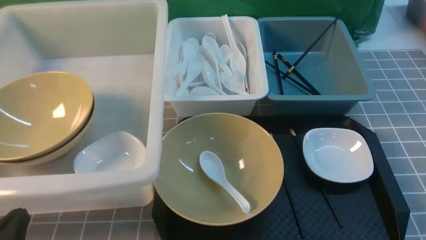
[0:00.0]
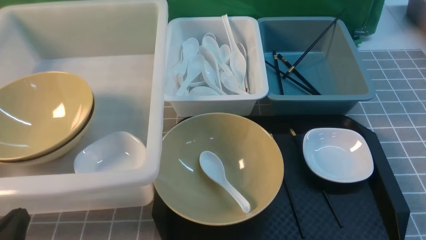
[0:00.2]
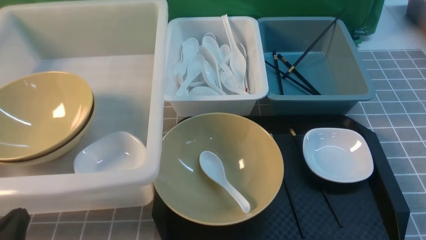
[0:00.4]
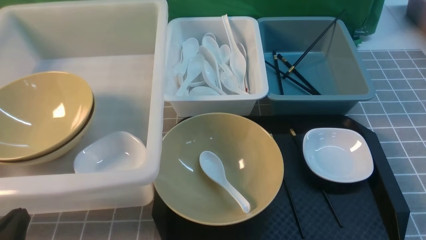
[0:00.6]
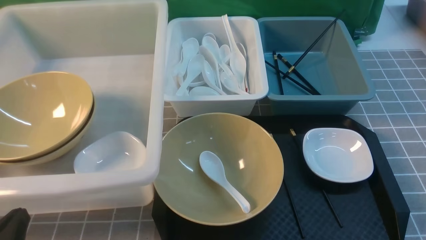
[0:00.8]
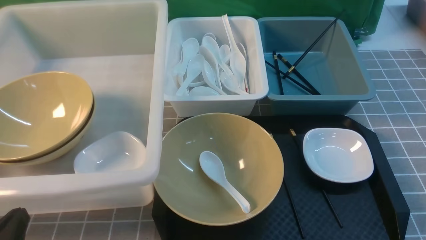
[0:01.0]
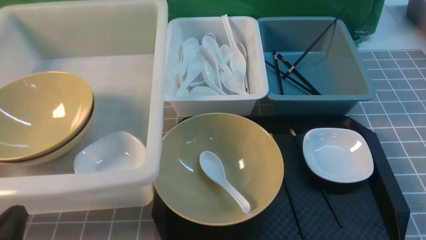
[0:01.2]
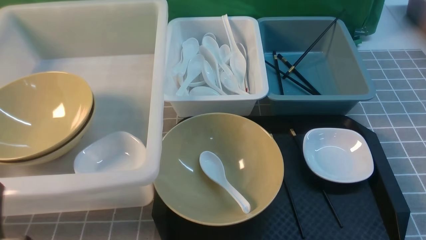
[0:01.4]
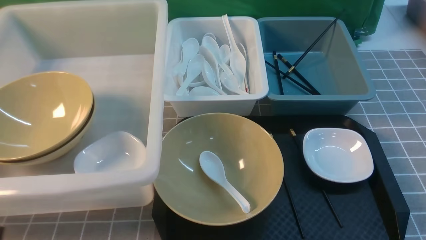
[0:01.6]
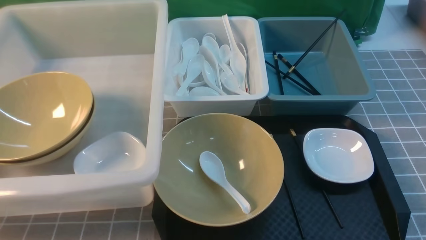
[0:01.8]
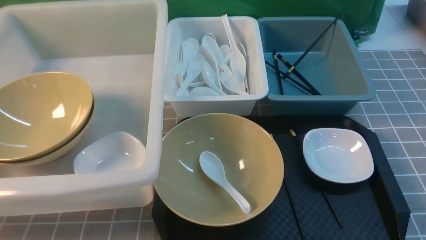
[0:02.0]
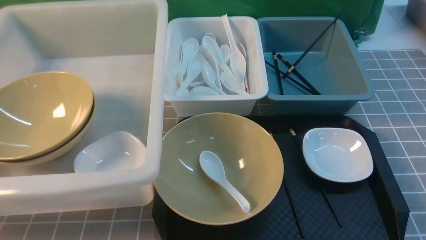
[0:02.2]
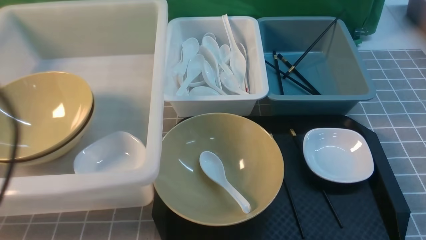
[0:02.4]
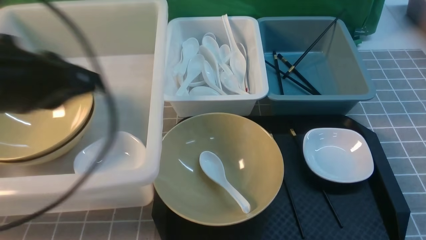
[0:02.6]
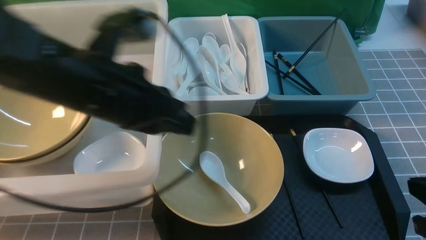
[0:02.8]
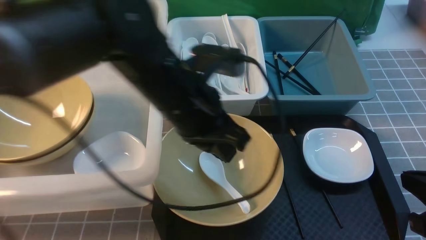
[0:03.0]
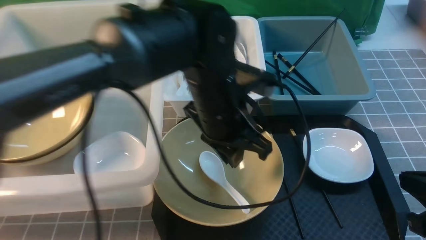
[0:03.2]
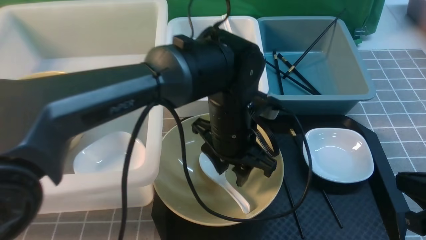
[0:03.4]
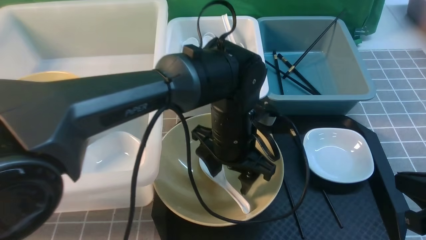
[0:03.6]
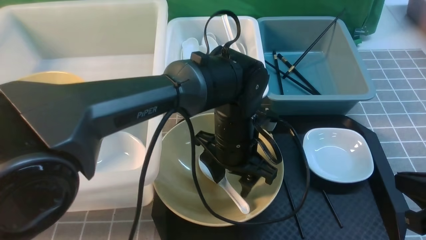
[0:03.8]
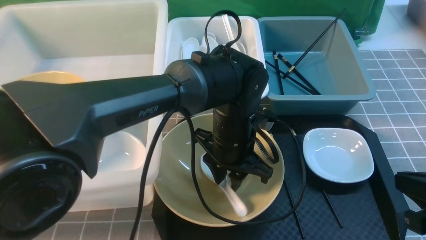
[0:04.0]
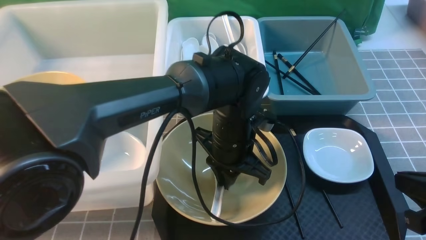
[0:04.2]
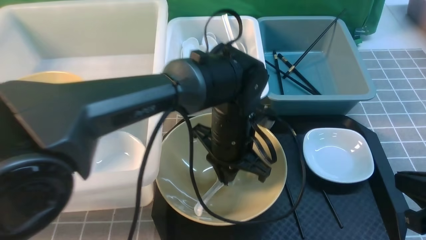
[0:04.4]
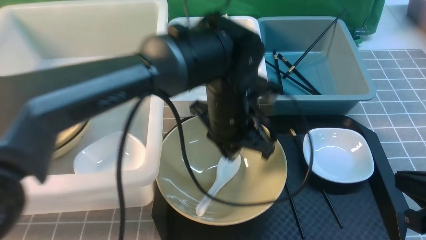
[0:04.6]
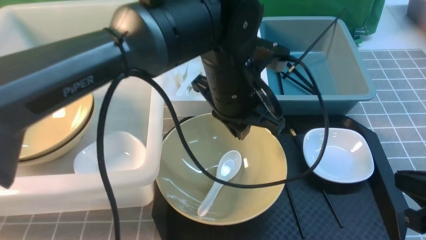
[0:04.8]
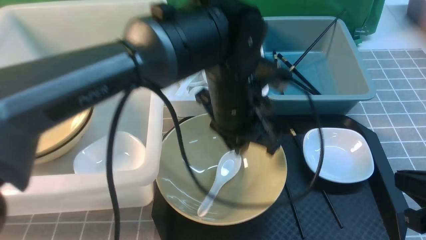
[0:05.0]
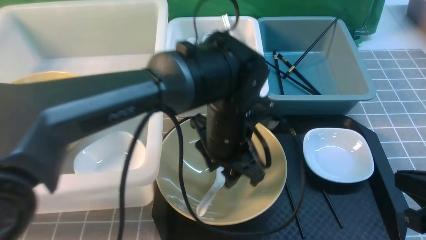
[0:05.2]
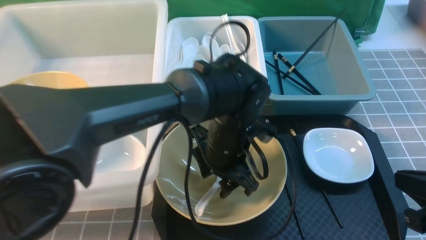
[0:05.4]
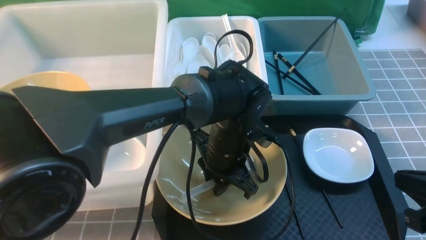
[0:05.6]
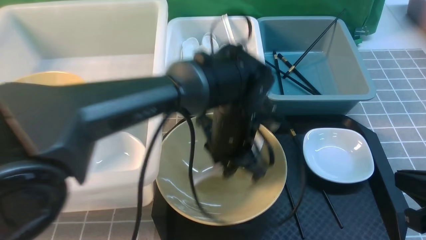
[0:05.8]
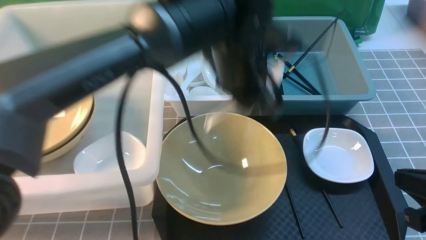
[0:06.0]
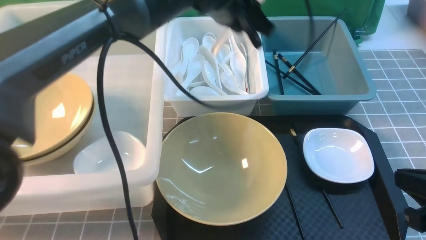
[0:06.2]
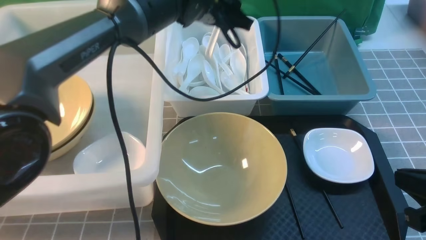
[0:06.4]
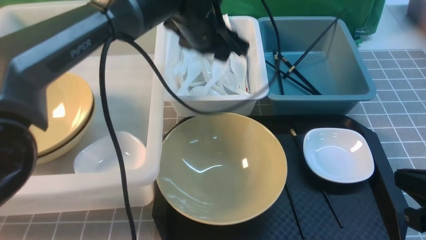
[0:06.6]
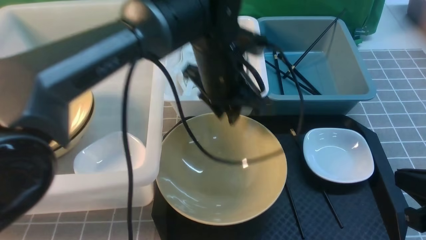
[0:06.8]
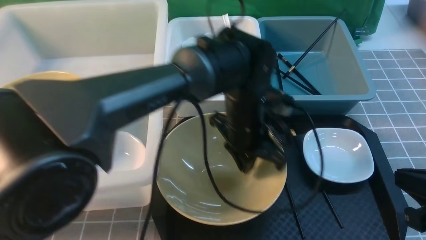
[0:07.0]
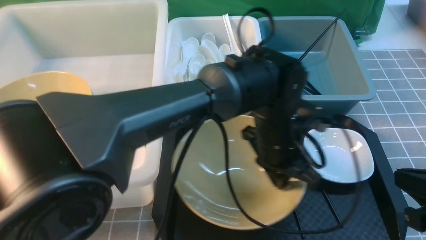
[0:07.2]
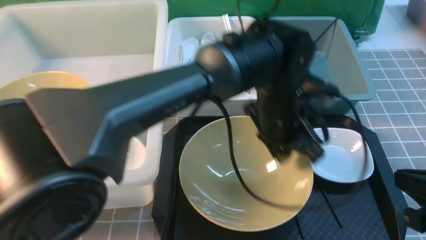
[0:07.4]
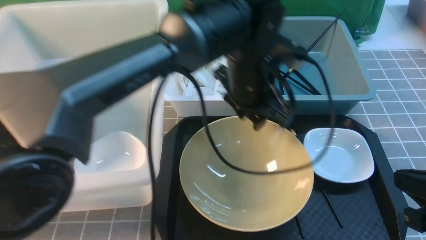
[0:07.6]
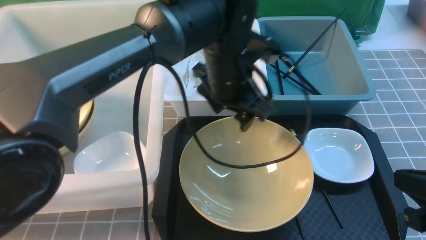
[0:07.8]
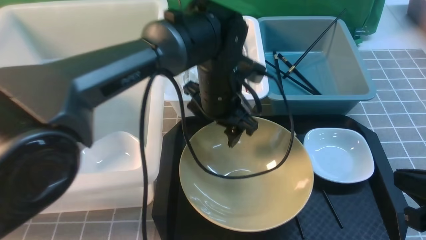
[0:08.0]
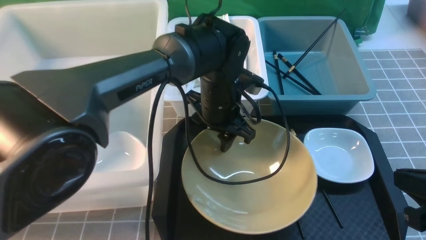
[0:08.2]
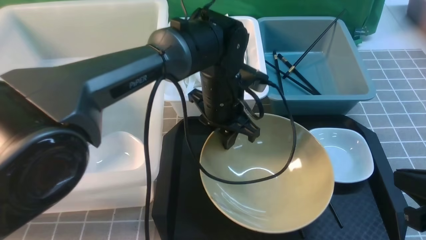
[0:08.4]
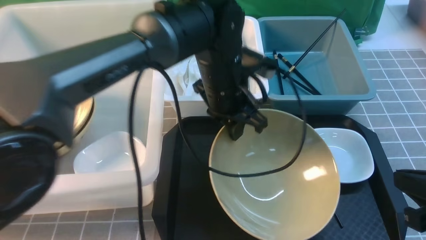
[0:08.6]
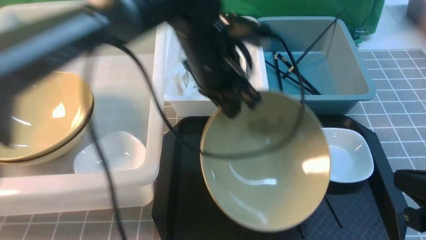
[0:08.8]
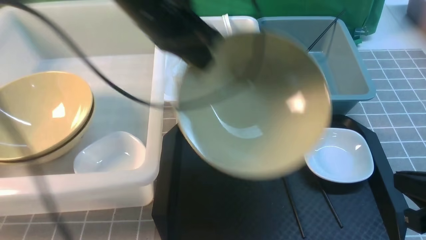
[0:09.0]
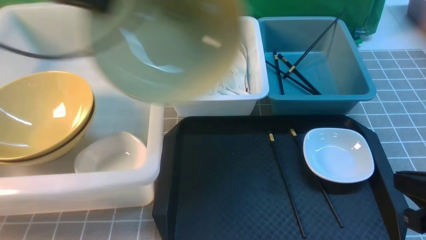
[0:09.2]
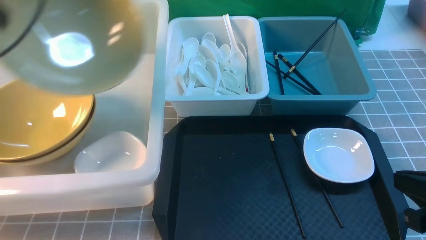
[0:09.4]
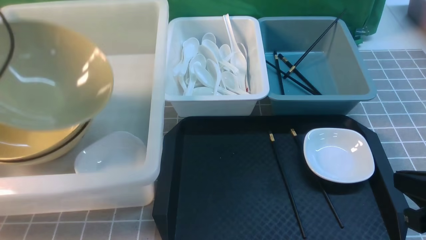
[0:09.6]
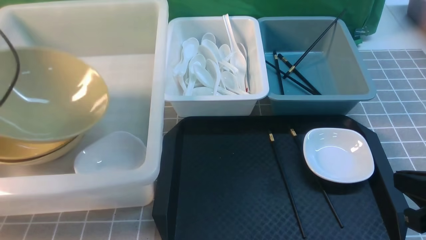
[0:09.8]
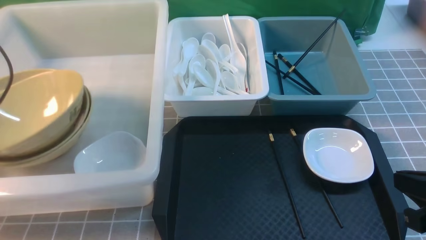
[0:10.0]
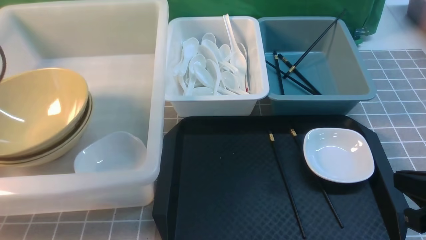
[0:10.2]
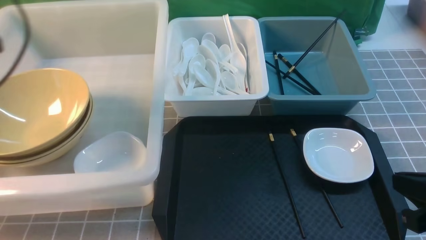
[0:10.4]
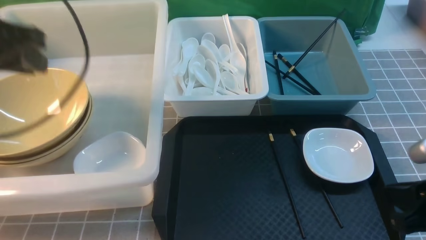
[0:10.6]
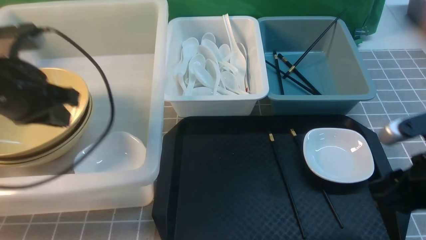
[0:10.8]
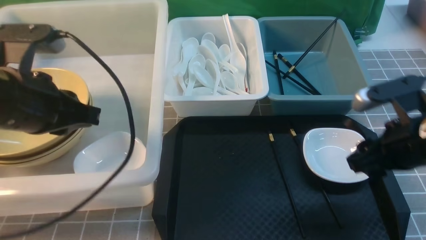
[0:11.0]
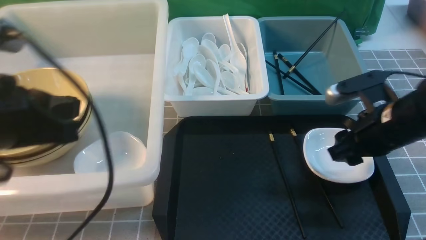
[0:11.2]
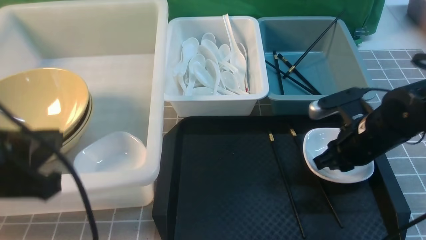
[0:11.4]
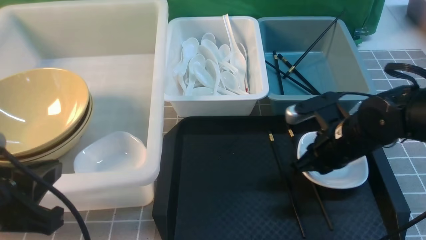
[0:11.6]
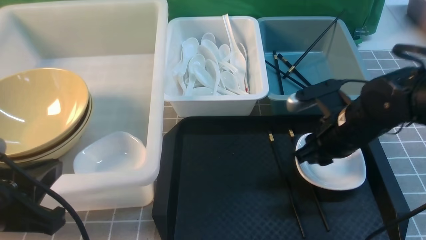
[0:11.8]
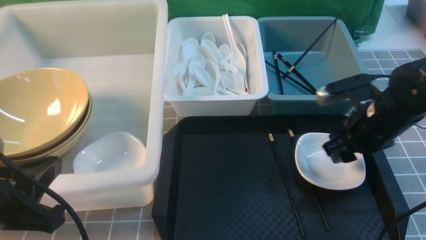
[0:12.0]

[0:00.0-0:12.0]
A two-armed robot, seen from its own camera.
Task of the whole recording: on grey table put chopsticks spoon bowls plates into blue grey white boxes.
Step, 0:00.0 to 0:06.0: use the left arm to grab the soup spoon in the middle.
Step, 0:06.2 to 0:06.6: use the left arm to put the soup spoon into the small storage box in the middle.
Step, 0:06.8 to 0:08.8: use the left arm to grab the yellow noodle bowl on the left.
Step, 0:09.0 to 0:10.4: use the left arm to put the noodle bowl into the large storage box on the left.
0:01.6 to 0:03.0: The left gripper goes roughly 30 cm forward, to the right and upward; the right gripper moves forward, roughly 5 cm.
0:03.0 to 0:04.4: The left gripper goes approximately 15 cm downward and to the right, and opens and closes again.
0:04.4 to 0:06.0: The left gripper swings up and down, roughly 10 cm each way, with 2 reversals, and opens, then closes once more.
0:06.0 to 0:07.6: The left gripper moves roughly 10 cm forward and comes back.
0:07.6 to 0:09.0: The left gripper travels to the left and upward by approximately 15 cm, and closes.
0:09.0 to 0:10.4: The left gripper is displaced to the left by approximately 25 cm, and opens.
0:10.4 to 0:12.0: The right gripper heads forward, covering roughly 20 cm, and opens its fingers. The left gripper moves backward, to the right and downward, roughly 25 cm, and closes its fingers.

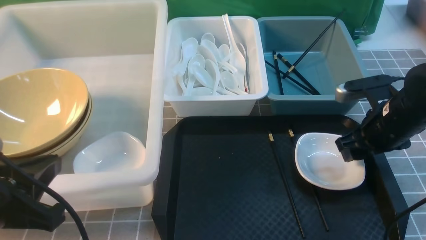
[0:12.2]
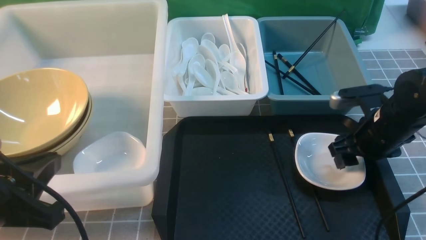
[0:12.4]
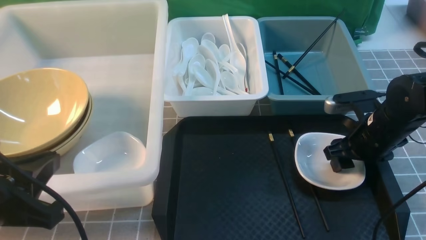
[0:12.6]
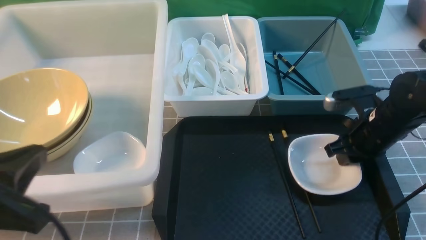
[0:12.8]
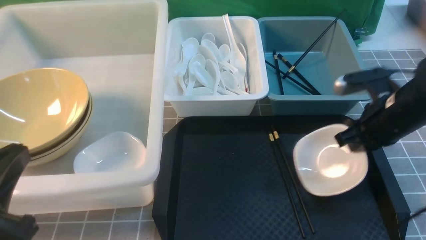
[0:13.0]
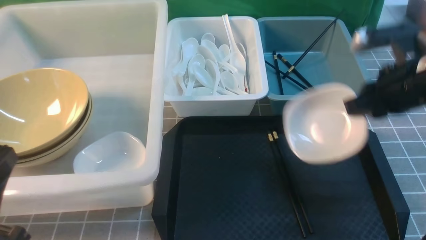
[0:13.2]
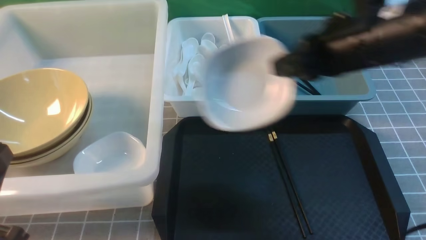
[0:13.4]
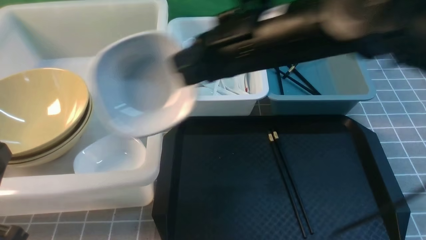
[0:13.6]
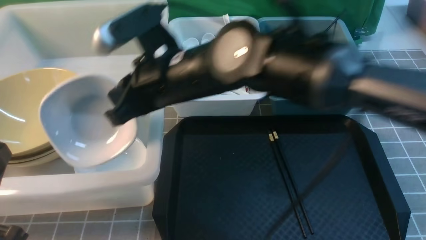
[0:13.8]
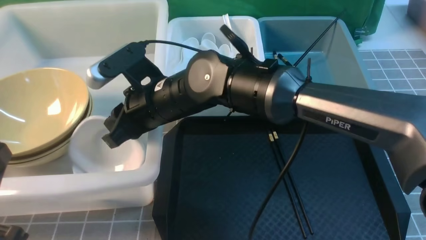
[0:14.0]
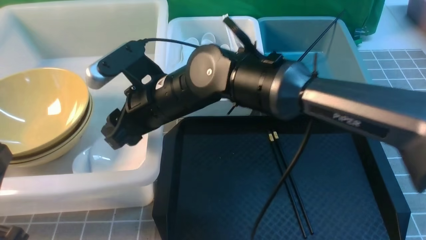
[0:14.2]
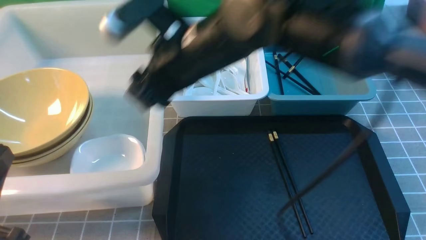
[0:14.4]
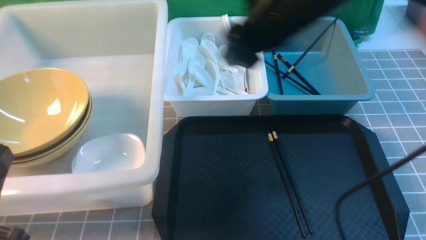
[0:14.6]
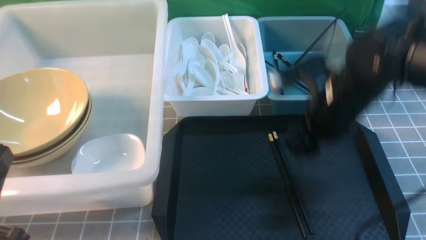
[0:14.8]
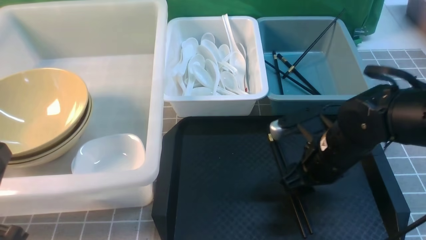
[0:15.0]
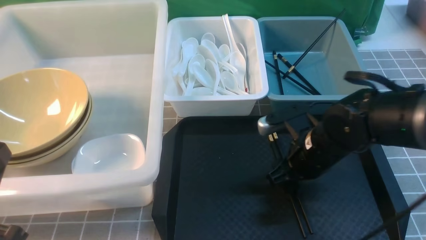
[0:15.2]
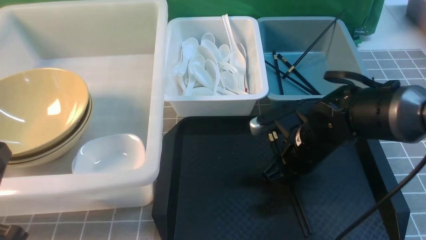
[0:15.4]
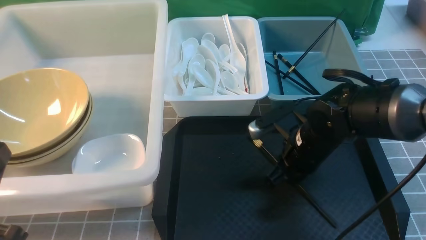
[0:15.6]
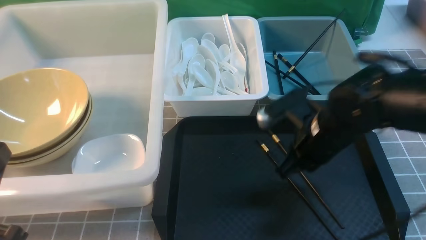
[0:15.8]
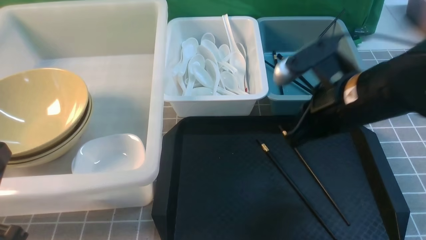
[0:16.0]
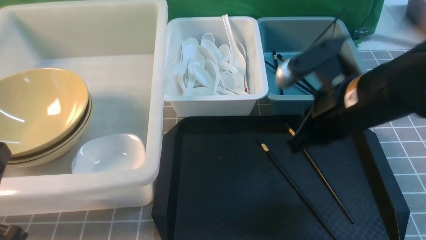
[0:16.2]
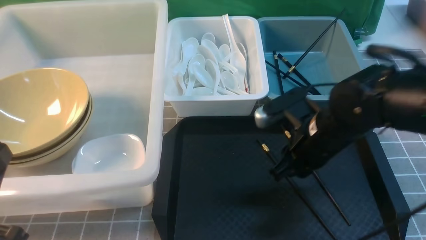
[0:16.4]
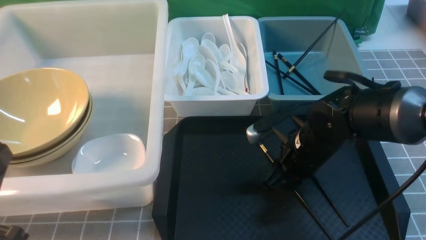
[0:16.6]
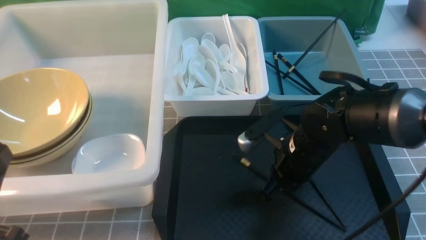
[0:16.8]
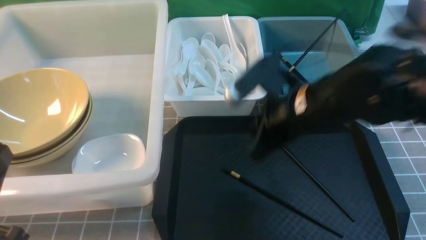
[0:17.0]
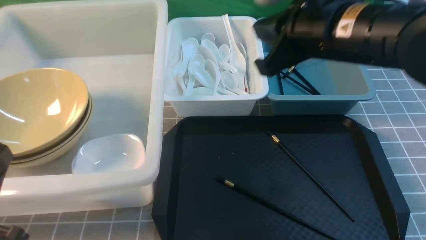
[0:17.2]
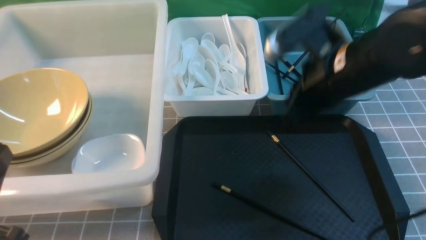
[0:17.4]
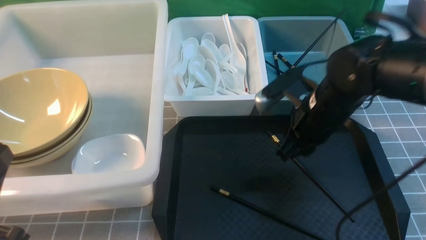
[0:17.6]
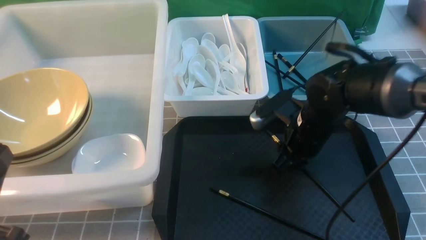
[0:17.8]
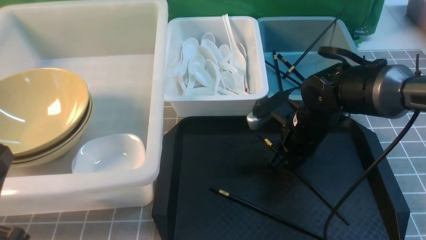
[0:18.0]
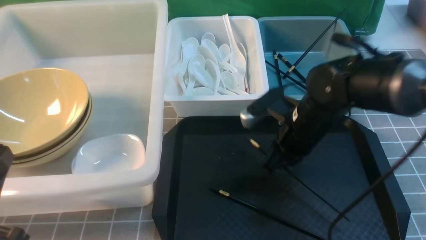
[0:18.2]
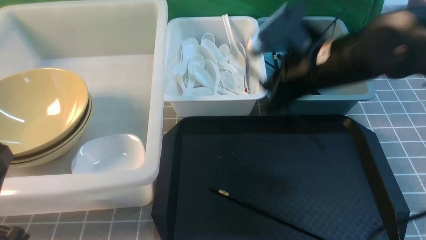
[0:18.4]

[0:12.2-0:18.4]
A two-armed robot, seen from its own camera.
Task of the whole recording: on grey table put chopsticks spoon bowls plates into blue grey white boxes.
Step, 0:13.2 to 0:14.2: use the right arm to put the plate into the large storage box on the left.
Step, 0:14.4 to 0:18.2: use the right arm to grab a chopstick.
0:12.2 to 0:13.8: The right gripper heads to the left and upward, covering some 25 cm, and closes. The left gripper shifts by approximately 5 cm.
0:13.8 to 0:15.4: The right gripper shifts some 20 cm downward and to the right, and opens up.
0:15.4 to 0:16.8: The right gripper goes upward and returns, some 10 cm each way, and closes.
0:16.8 to 0:18.4: The right gripper goes up and down, about 15 cm each way, reversing 2 times.
